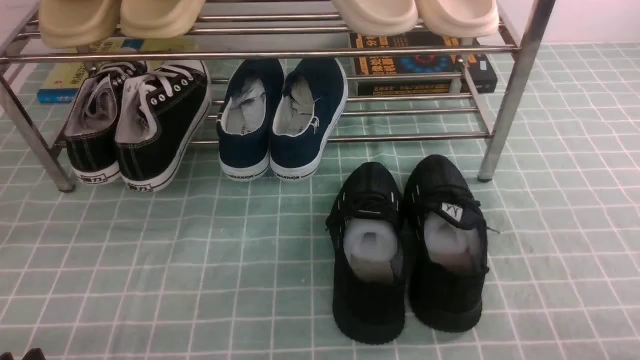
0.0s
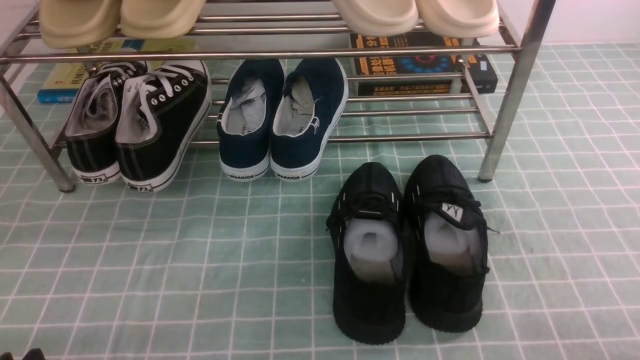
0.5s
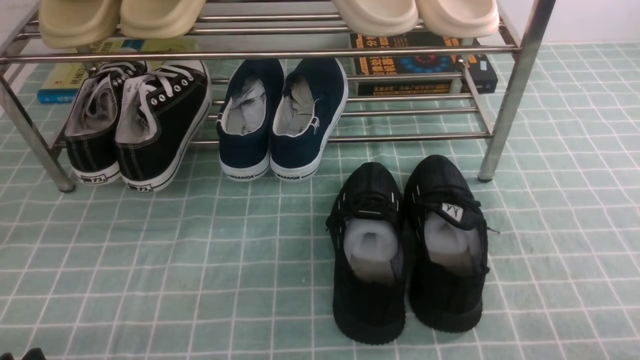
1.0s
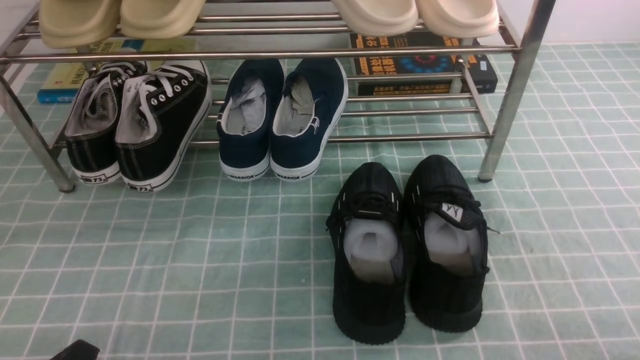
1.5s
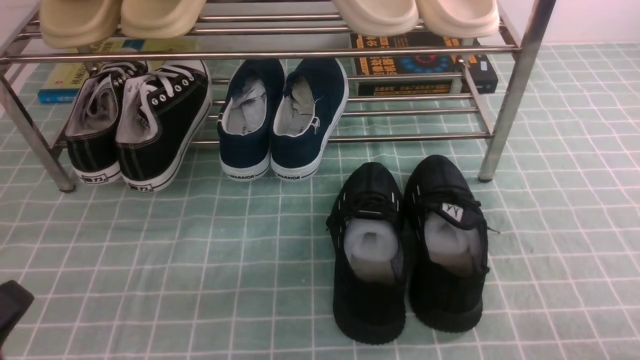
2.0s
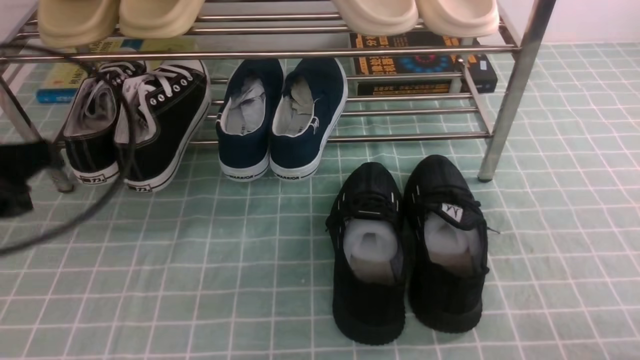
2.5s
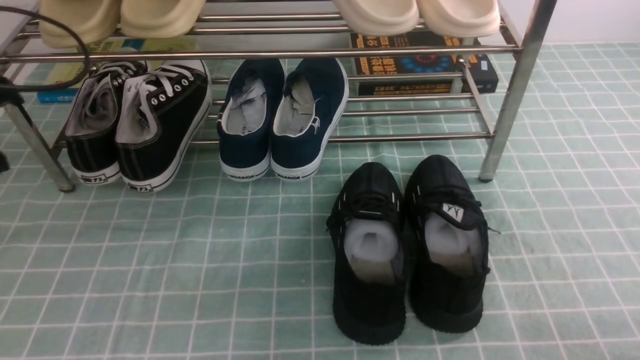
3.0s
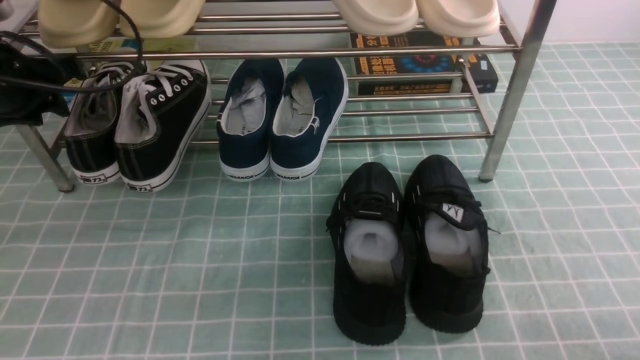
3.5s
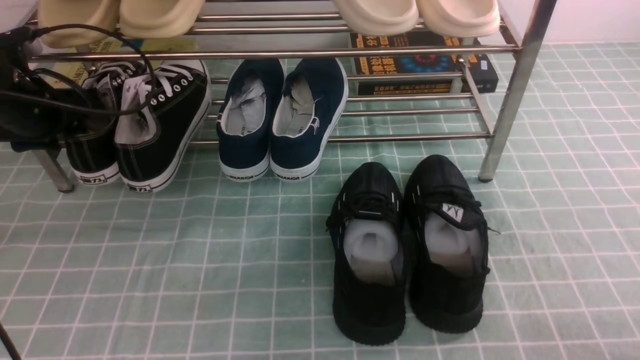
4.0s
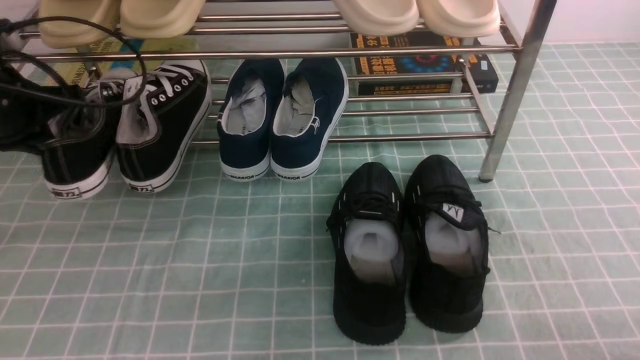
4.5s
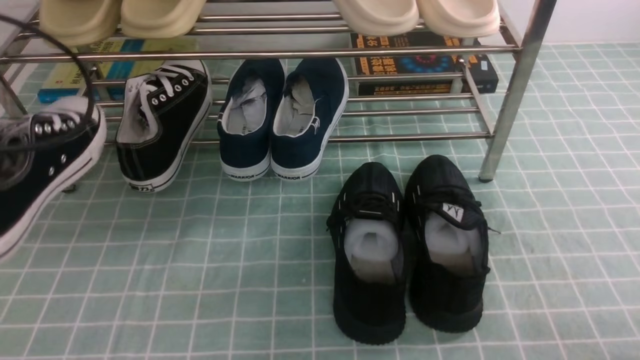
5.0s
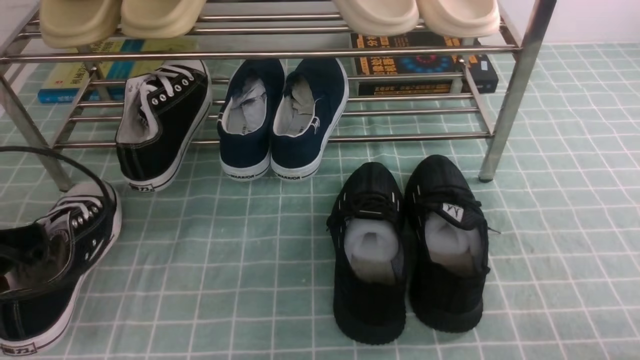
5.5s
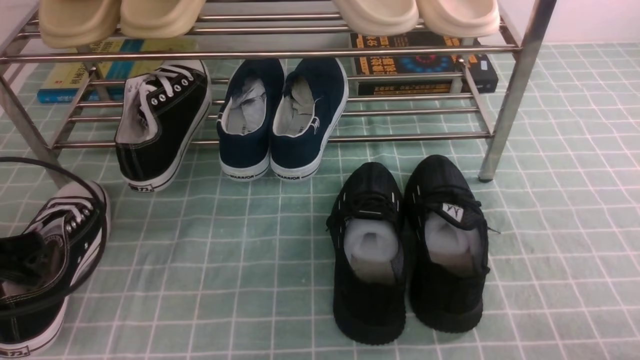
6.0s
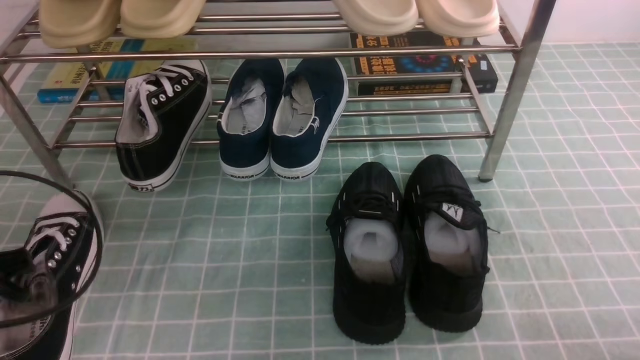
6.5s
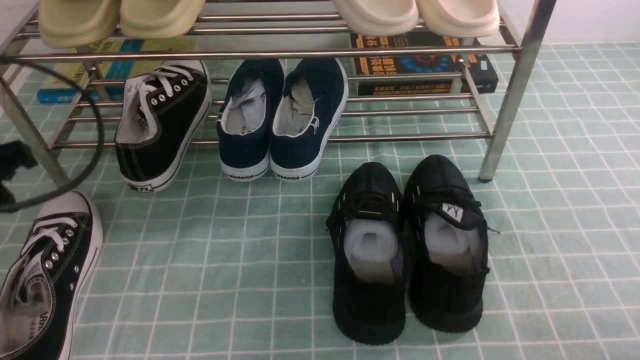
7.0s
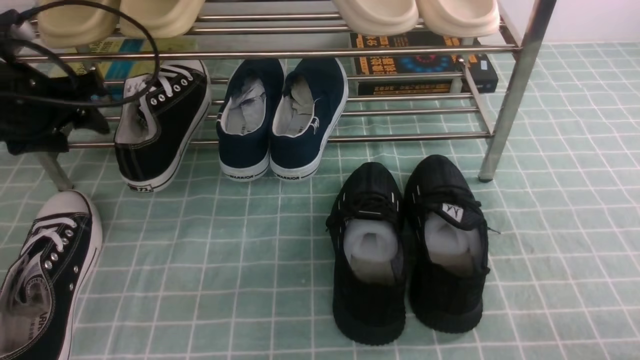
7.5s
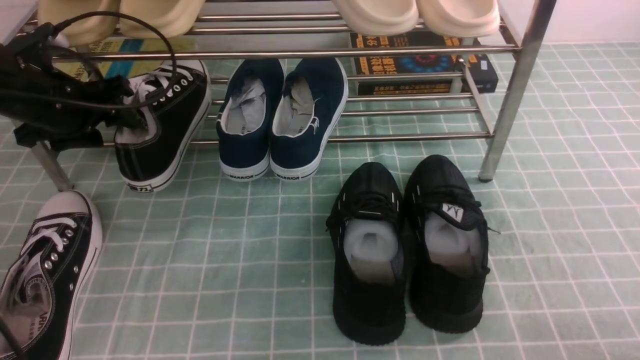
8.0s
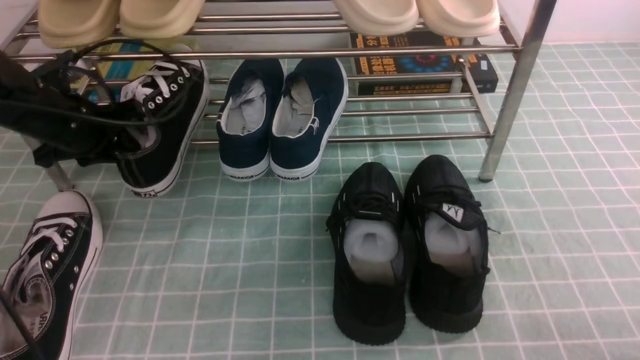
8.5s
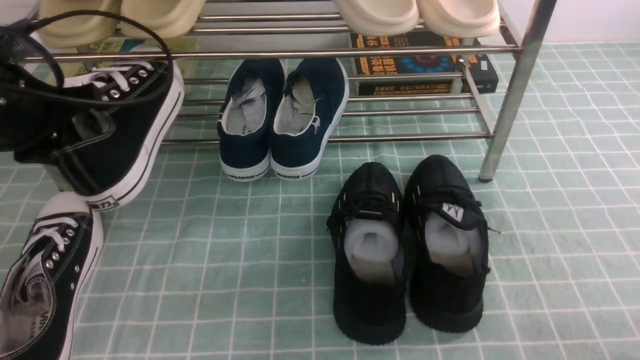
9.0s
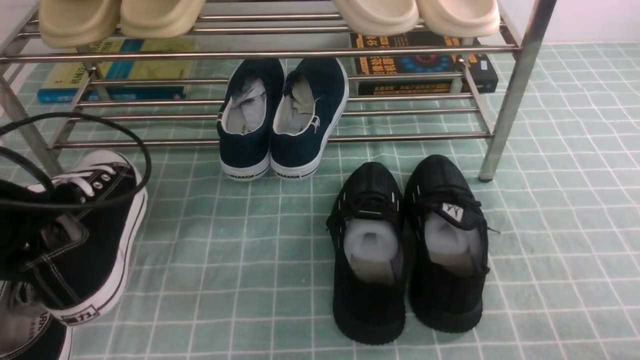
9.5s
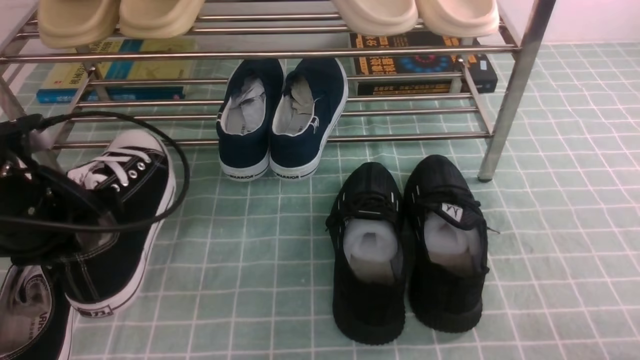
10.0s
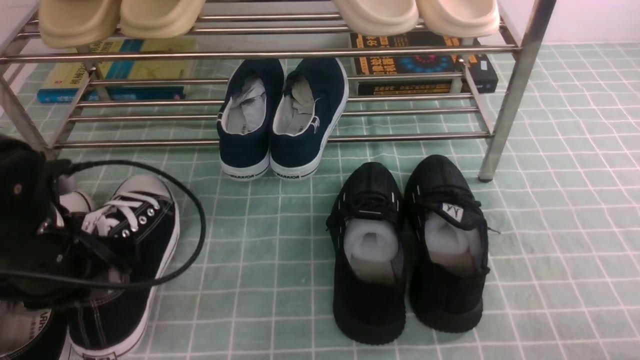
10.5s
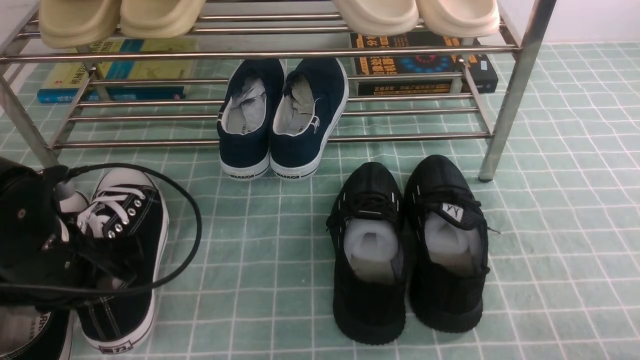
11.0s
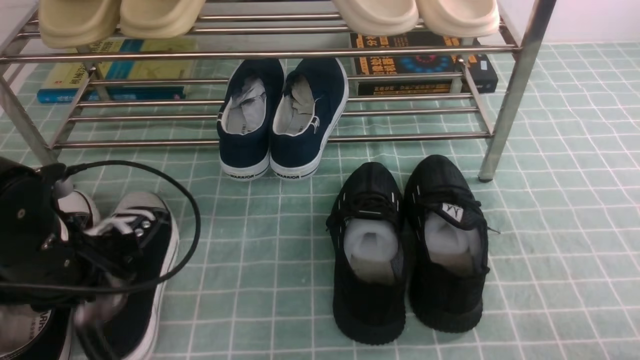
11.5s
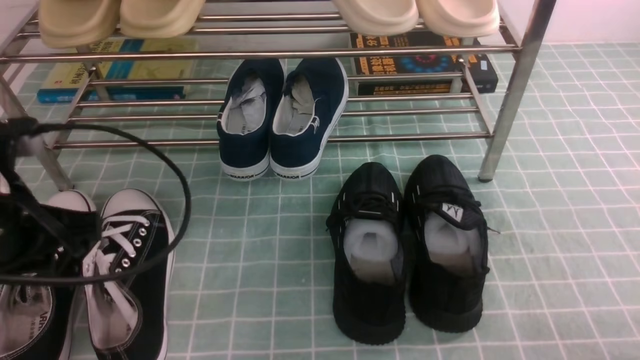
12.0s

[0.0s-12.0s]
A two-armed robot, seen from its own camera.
Step, 0.0s to 4.0s: use the left arm to clamp a shoe on the left side of the shoe rack.
Step, 4.5s to 6.5s: Use your left arm to remove the clamped shoe from the shoe rack and put it down.
Step, 7.0s to 8.0s: use the left arm to clamp a shoe on the left side of the shoe rack.
0.0s to 2.0s: The left gripper moves upward, about 10 cm, and closes up.
2.0s to 4.0s: The left gripper moves forward, about 35 cm, and opens its fingers.
4.0s to 6.0s: The left gripper shifts roughly 20 cm backward, and closes.
6.0s to 8.0s: The left gripper is displaced forward by some 20 cm, and opens its fingers.
8.0s to 10.0s: The left gripper travels backward by roughly 15 cm, and closes.
10.0s to 12.0s: The left gripper moves about 5 cm.

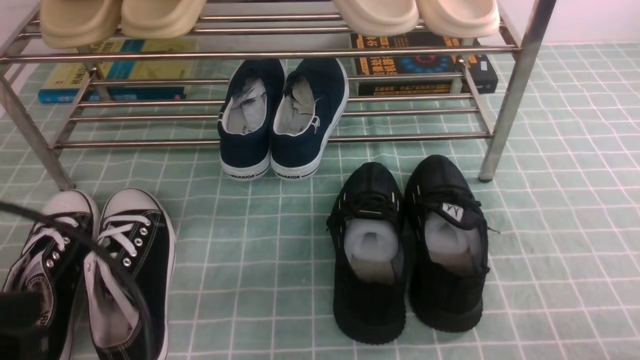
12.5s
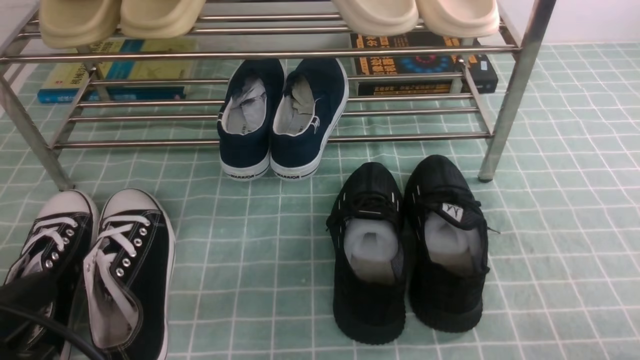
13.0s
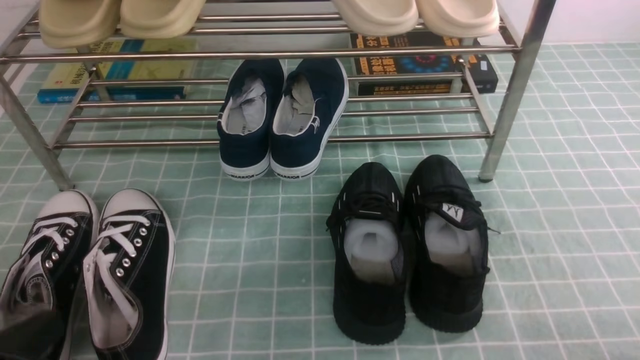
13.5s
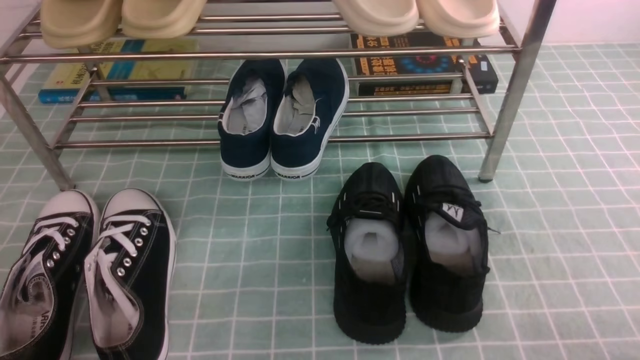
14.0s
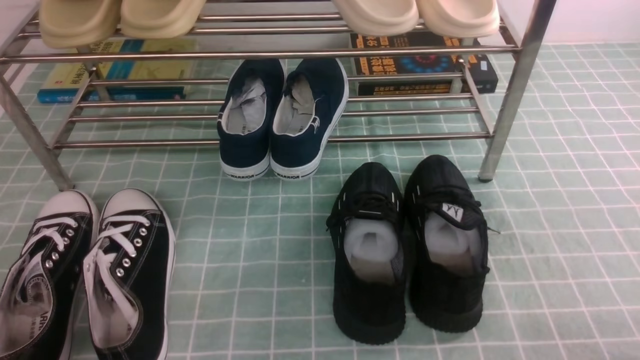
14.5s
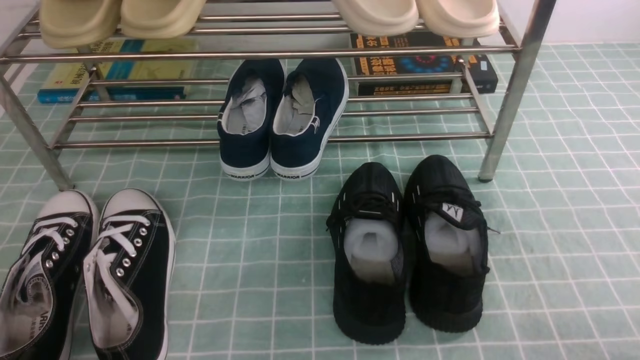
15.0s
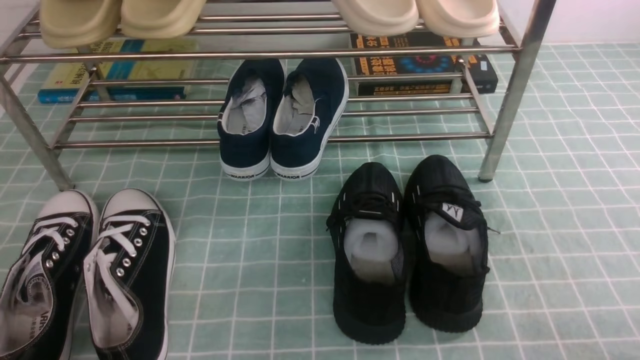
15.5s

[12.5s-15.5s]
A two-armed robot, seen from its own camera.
12.5s to 14.0s: The left gripper goes some 15 cm downward.
14.0s to 15.5s: Both grippers stay put.

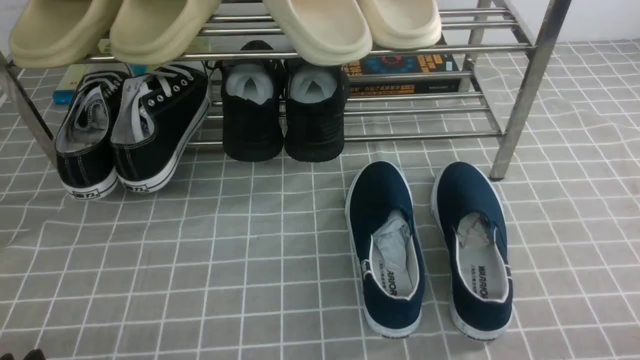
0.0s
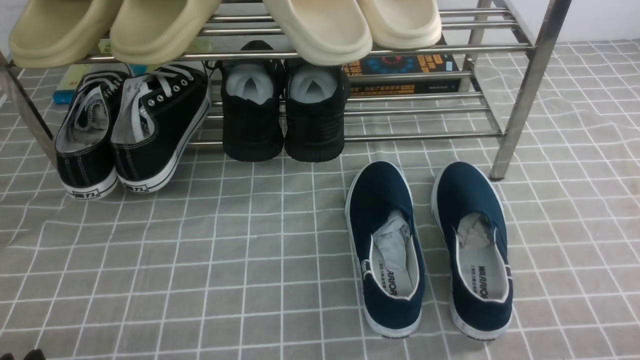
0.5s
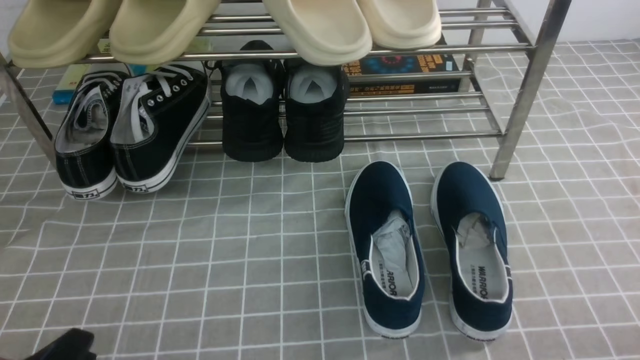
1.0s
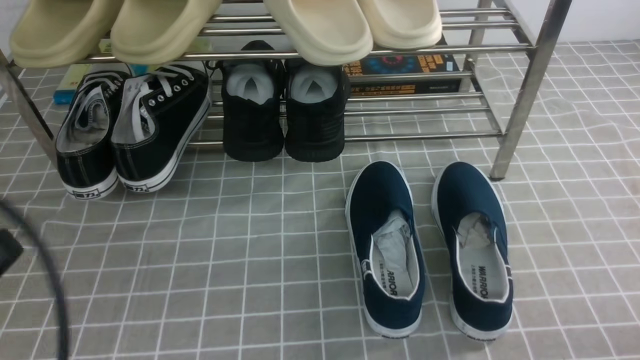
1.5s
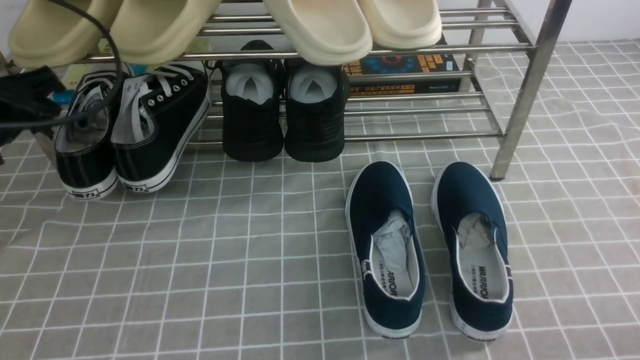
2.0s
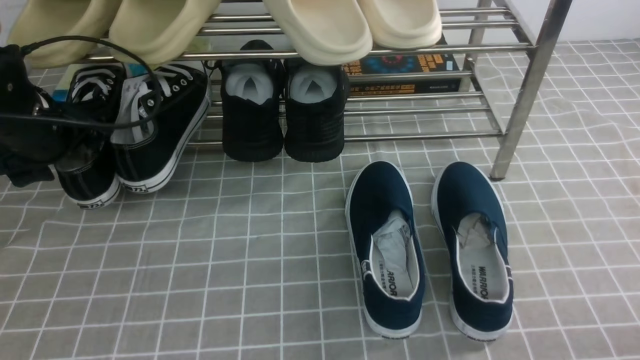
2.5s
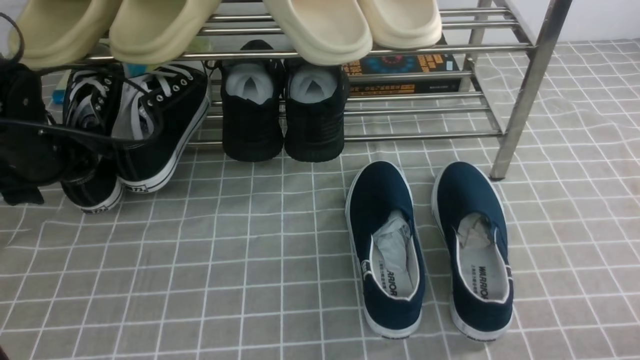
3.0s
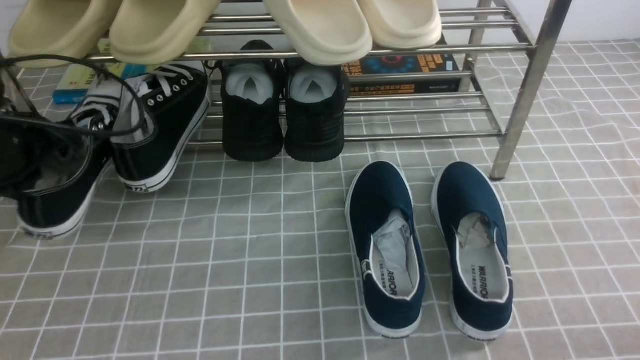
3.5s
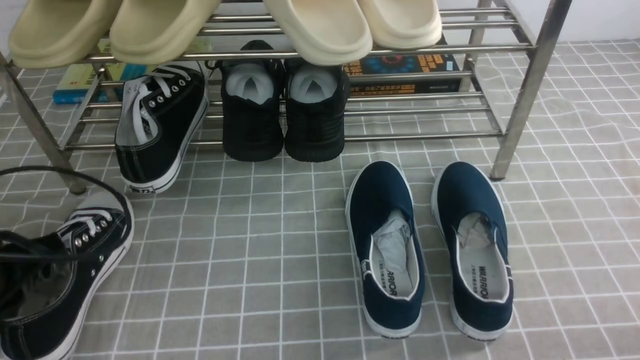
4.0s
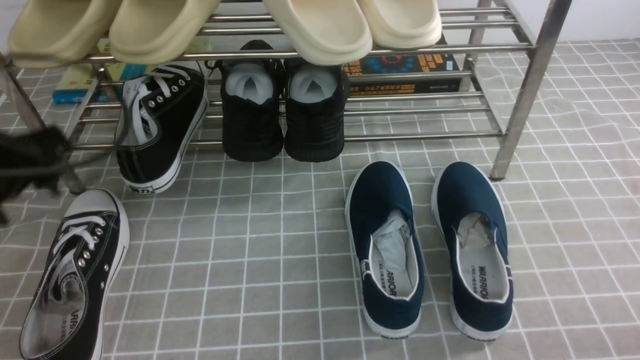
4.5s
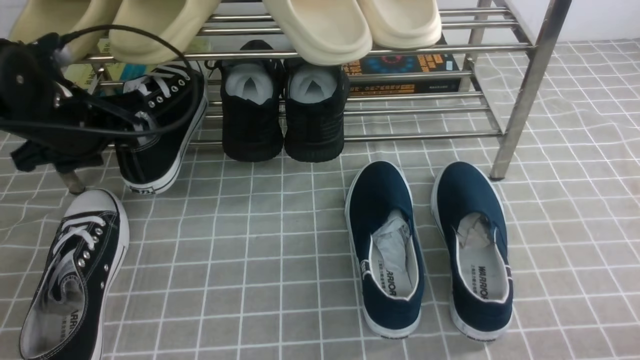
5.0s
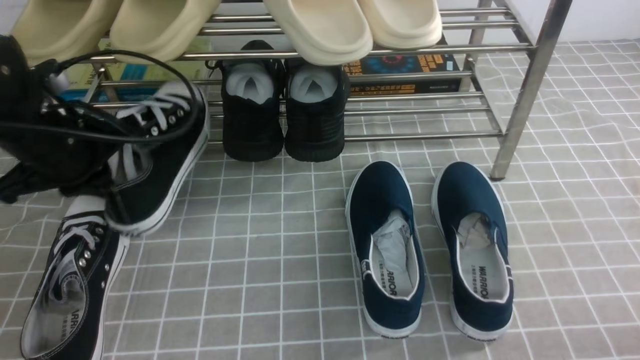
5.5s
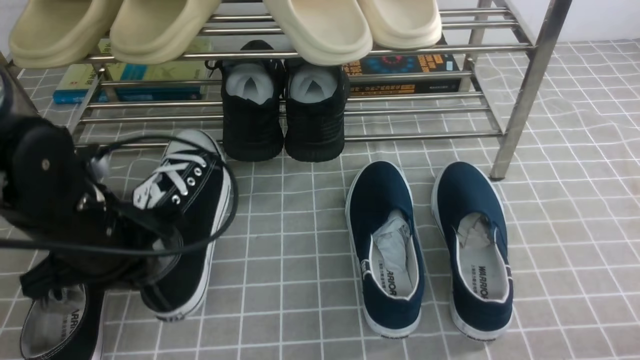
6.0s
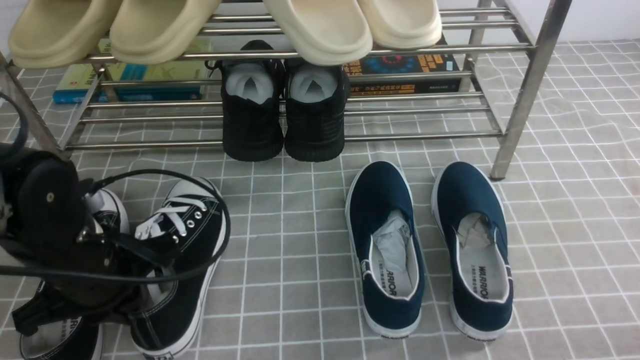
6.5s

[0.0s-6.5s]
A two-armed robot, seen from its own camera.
Step, 0.0s to 3.0s: use the left arm to clamp a shoe on the left side of the shoe rack.
Step, 3.5s to 4.0s: Use your left arm to remove the clamped shoe from the shoe rack and put it down.
Step, 5.0s to 5.5s: use the left arm to clamp a shoe on the left side of the shoe rack.
0.0s to 2.0s: The left gripper moves forward and upward, roughly 30 cm, and opens up.
2.0s to 4.5s: The left gripper swings forward and backward, roughly 15 cm each way, with 2 reversals, and closes, then opens again.
4.5s to 6.5s: The left gripper shifts about 10 cm downward and to the right, reaches roughly 10 cm forward, then returns, and closes up.
